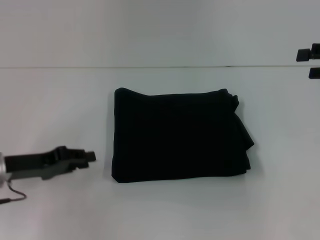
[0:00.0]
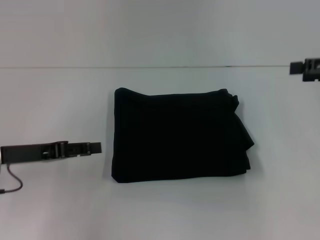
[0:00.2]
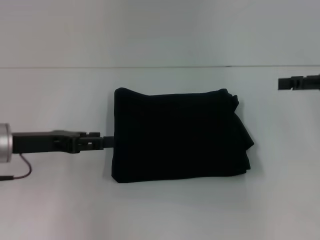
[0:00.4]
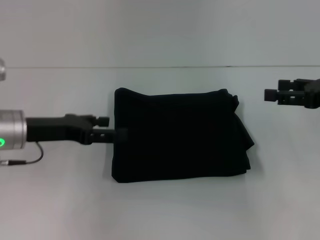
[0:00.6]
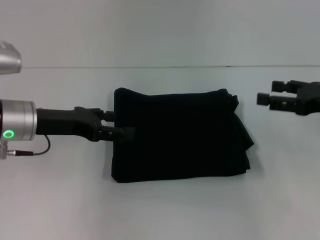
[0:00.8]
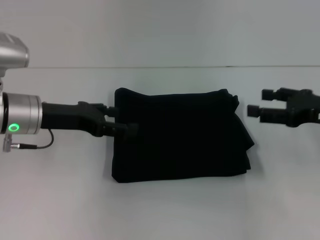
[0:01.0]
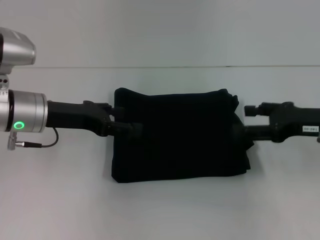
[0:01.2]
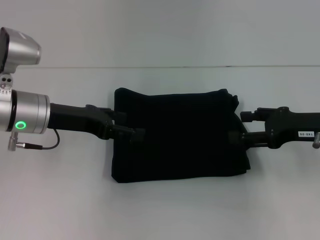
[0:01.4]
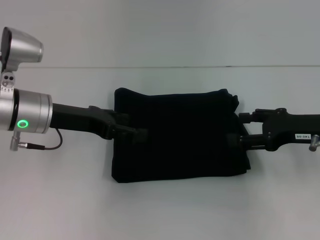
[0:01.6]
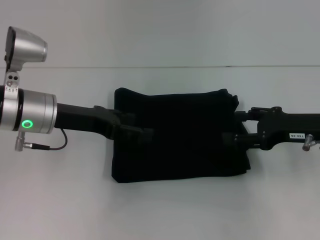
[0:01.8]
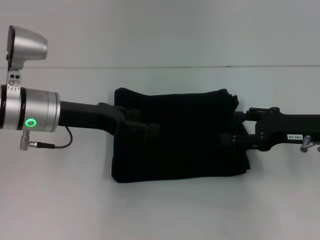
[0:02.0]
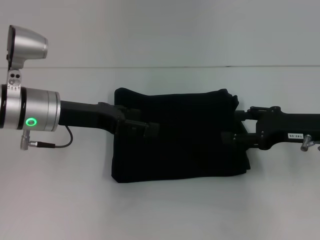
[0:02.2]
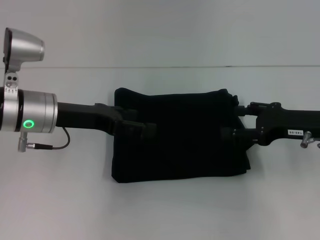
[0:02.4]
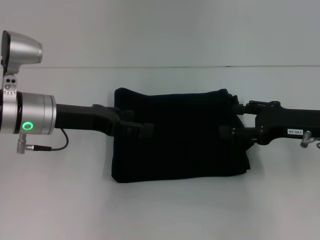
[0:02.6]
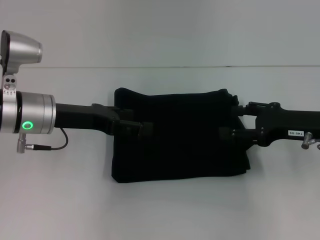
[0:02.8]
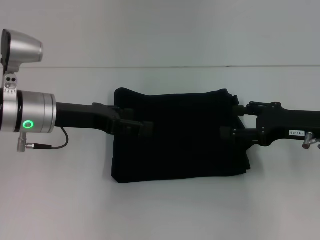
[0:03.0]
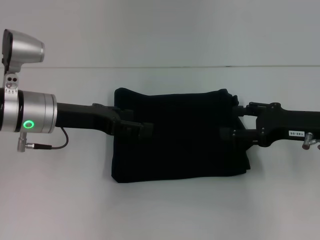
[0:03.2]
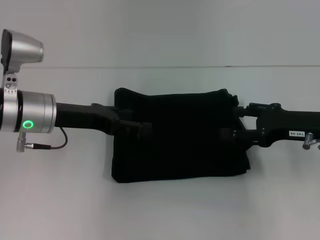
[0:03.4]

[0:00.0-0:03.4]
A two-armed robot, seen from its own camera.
0:00.0 to 0:01.6: The right gripper moves downward and to the left, about 15 cm. Meanwhile the left gripper heads to the right, upward and forward, covering about 10 cm, and opens up.
0:01.6 to 0:03.4: Neither gripper changes place.
